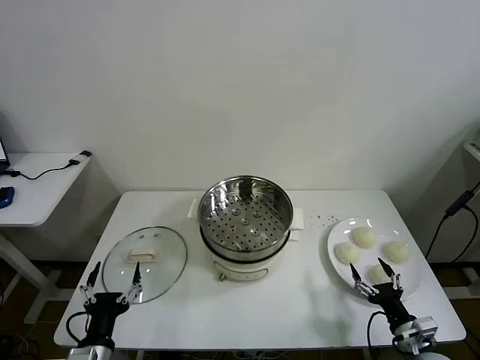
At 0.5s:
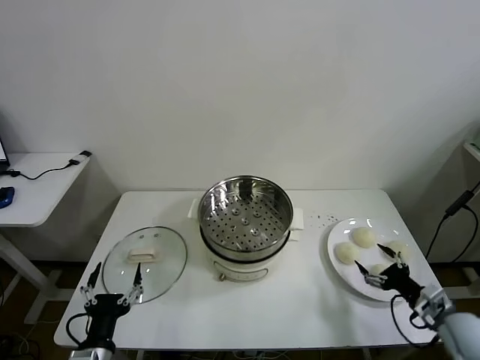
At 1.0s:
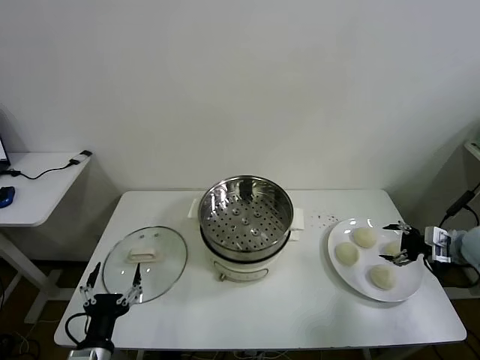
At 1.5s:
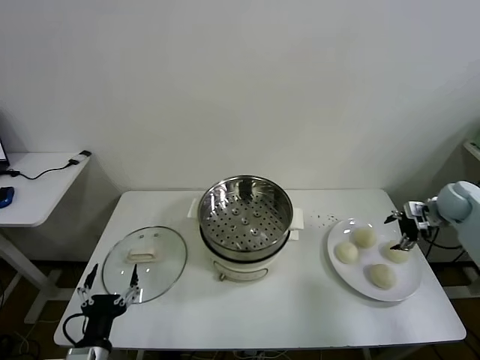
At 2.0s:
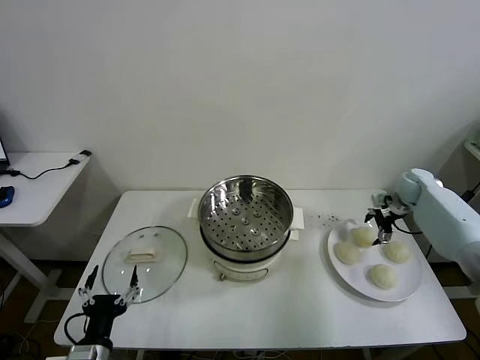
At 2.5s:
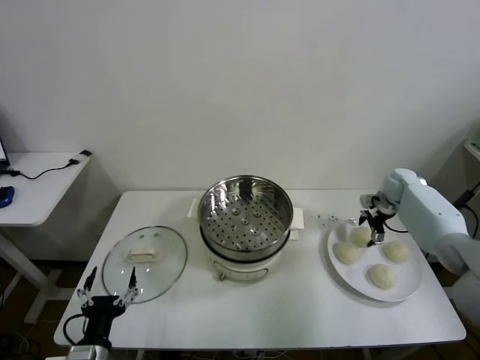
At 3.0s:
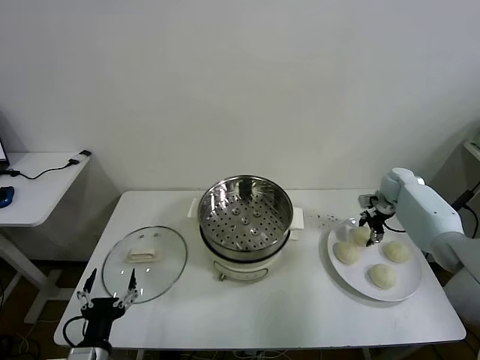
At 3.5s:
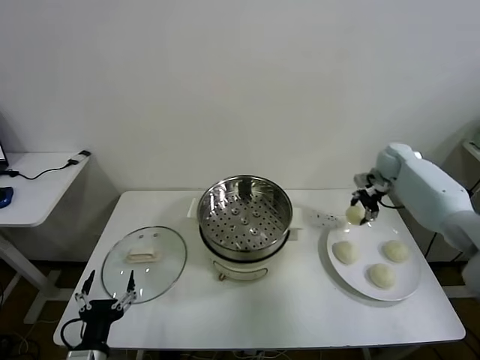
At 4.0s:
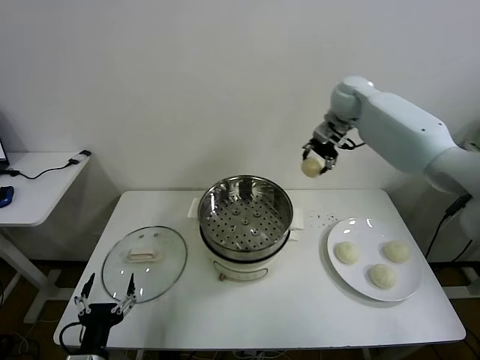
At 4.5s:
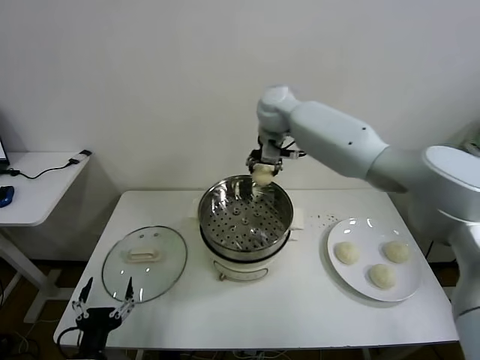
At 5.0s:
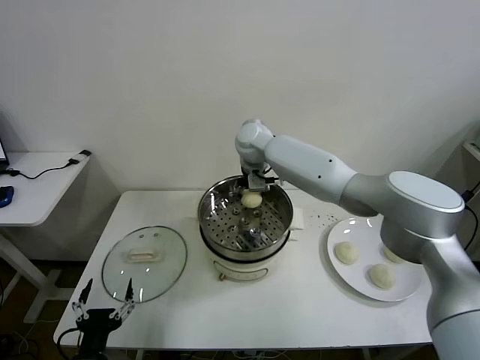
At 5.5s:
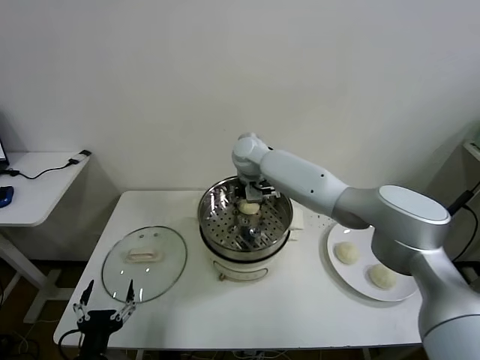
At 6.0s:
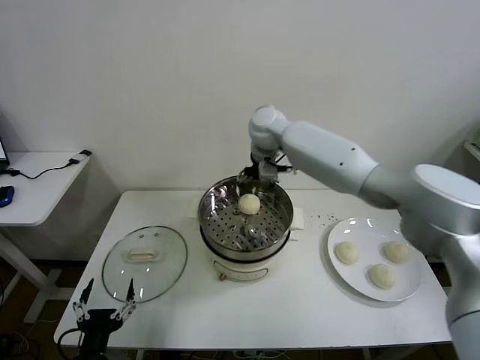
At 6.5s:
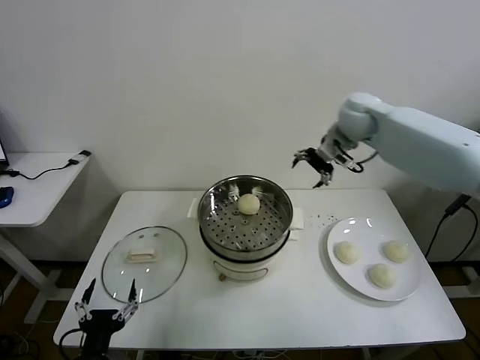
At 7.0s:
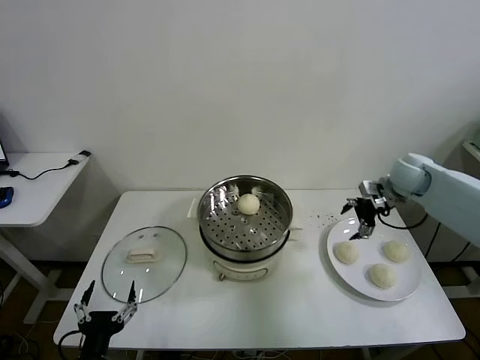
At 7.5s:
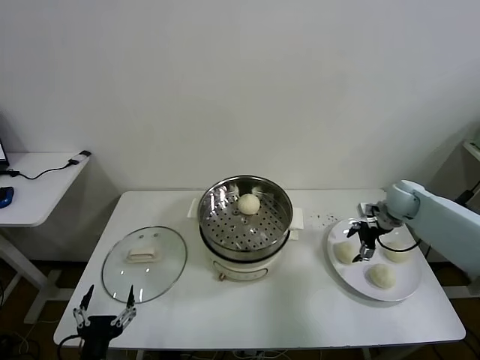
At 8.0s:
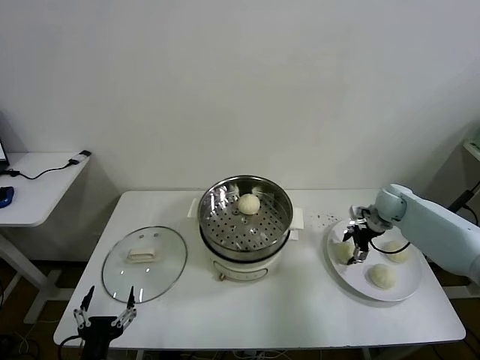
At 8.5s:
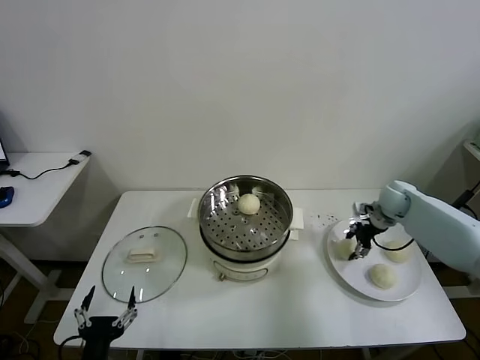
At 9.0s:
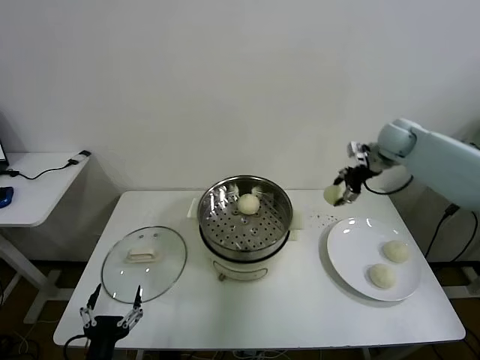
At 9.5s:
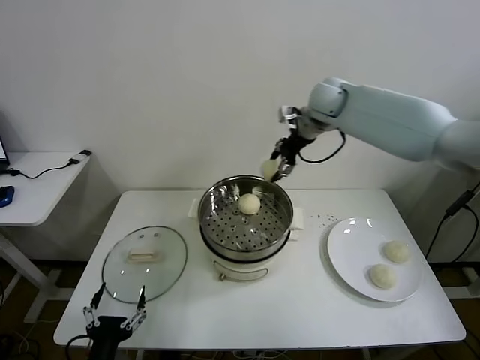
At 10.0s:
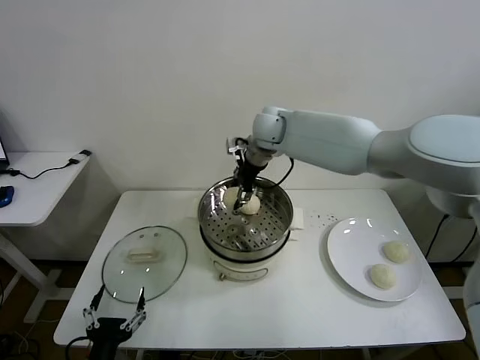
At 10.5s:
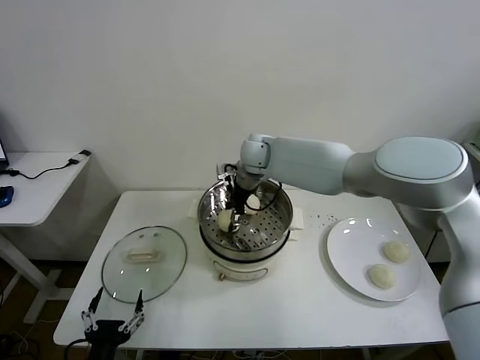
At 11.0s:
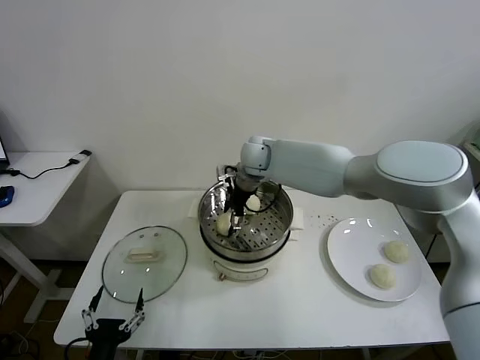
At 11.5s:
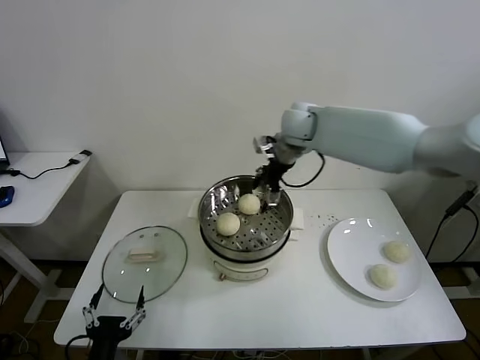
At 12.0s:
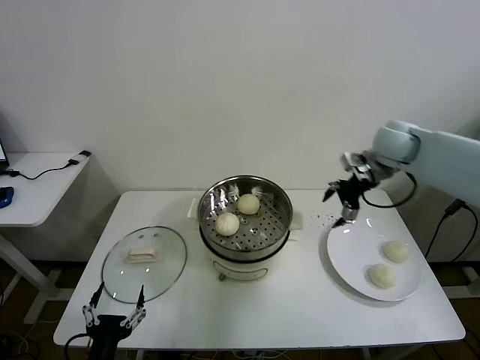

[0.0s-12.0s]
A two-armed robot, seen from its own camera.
Task of the whole recording: take steamed baozi put them in steamer then cover it.
Step, 0.0s to 2.5s: Grasp the baozi in the plate with right gripper.
Step, 3.0s to 5.5s: Place the baozi on the steamer with right gripper.
Step, 6.0s to 8.0s: Grasp the baozi in the plate with right gripper.
Step, 8.5s to 11.0s: Place the baozi on the steamer with right gripper.
2.0s to 4.0s: The right gripper heads to the left and upward, covering approximately 35 cm, and closes its fingers.
4.0s to 6.0s: The right gripper moves to the left, about 15 cm, and opens its fingers.
6.0s to 8.0s: The right gripper heads to the right and downward, covering some 40 cm.
8.0s to 10.0s: The right gripper shifts some 40 cm to the left and upward, and closes its fingers.
10.0s to 12.0s: The right gripper goes about 30 cm to the right, and opens.

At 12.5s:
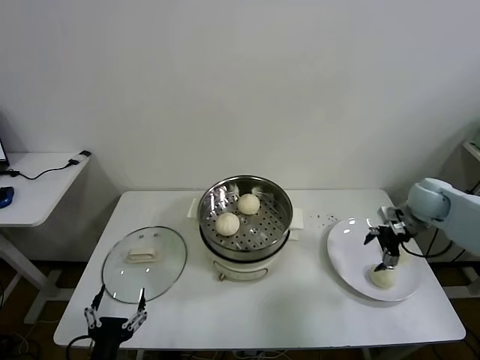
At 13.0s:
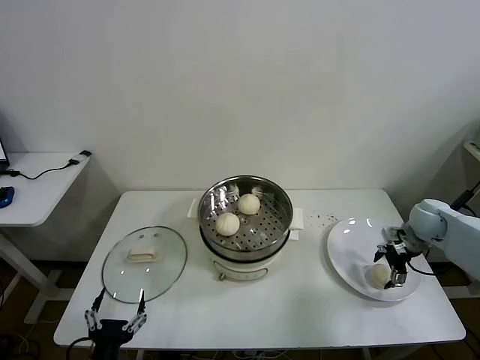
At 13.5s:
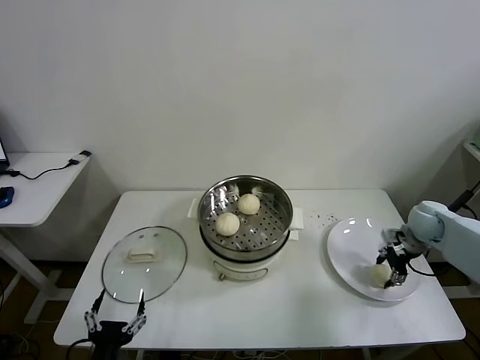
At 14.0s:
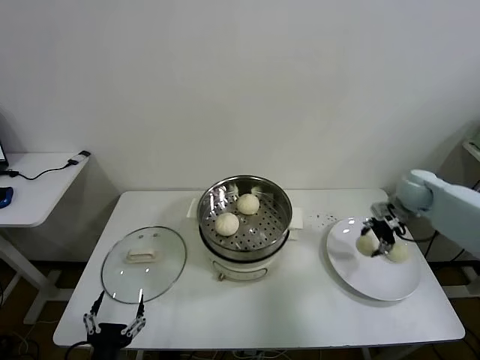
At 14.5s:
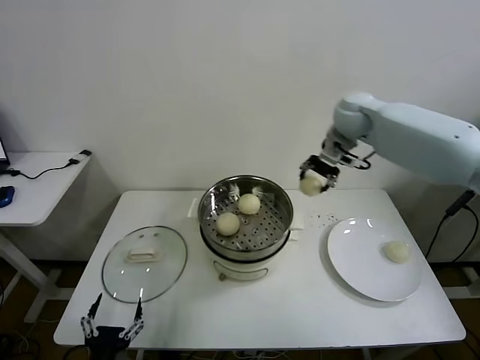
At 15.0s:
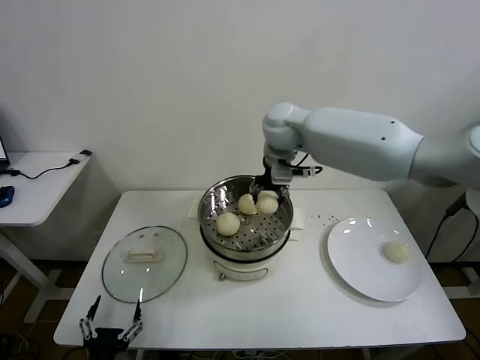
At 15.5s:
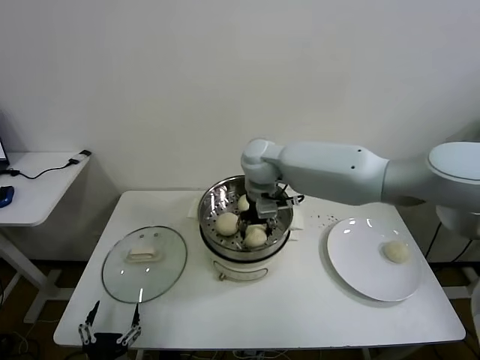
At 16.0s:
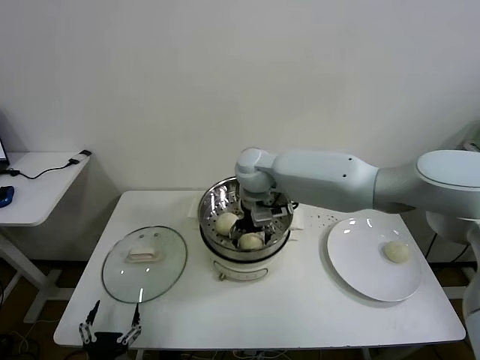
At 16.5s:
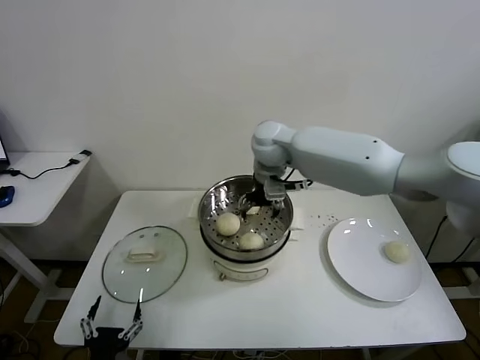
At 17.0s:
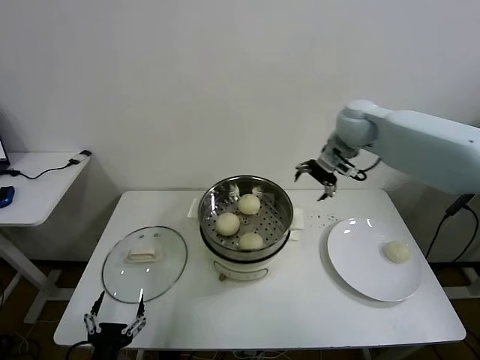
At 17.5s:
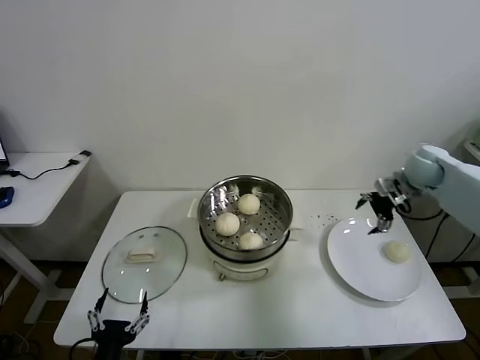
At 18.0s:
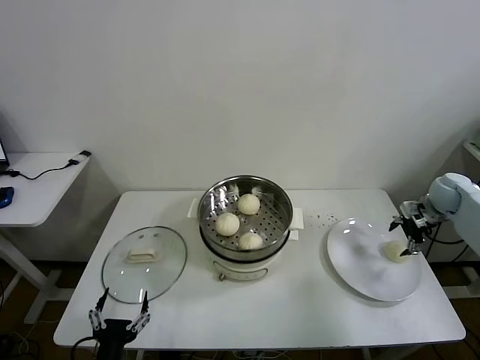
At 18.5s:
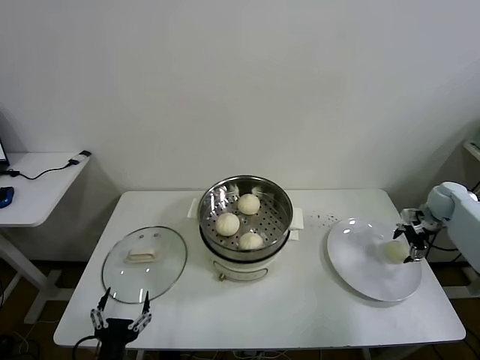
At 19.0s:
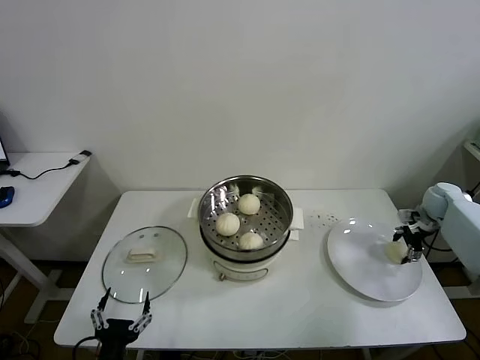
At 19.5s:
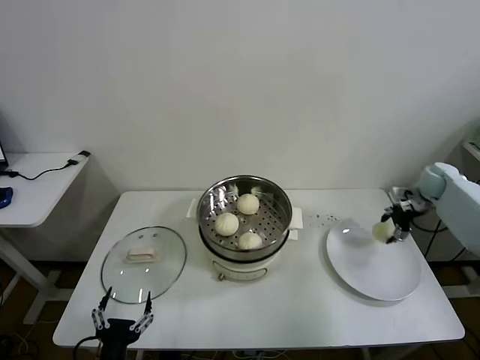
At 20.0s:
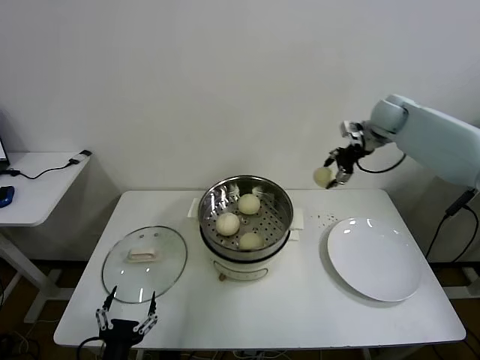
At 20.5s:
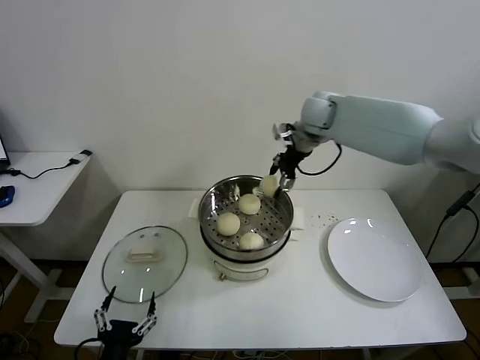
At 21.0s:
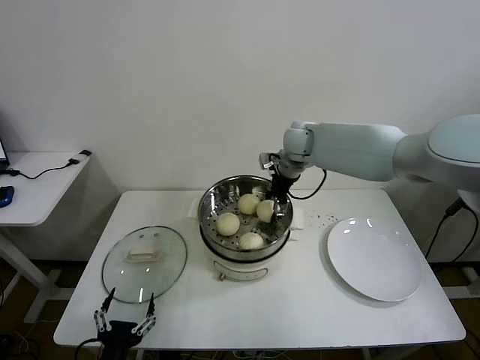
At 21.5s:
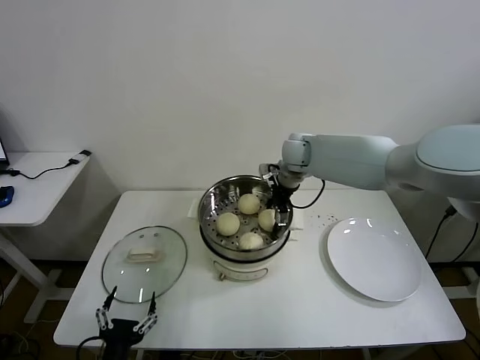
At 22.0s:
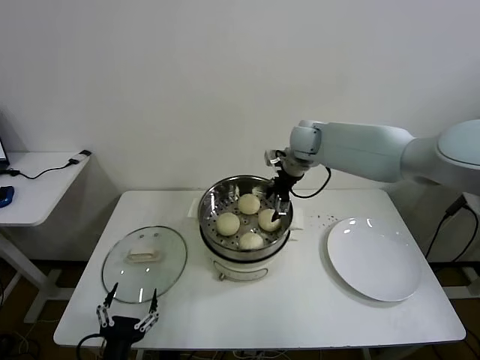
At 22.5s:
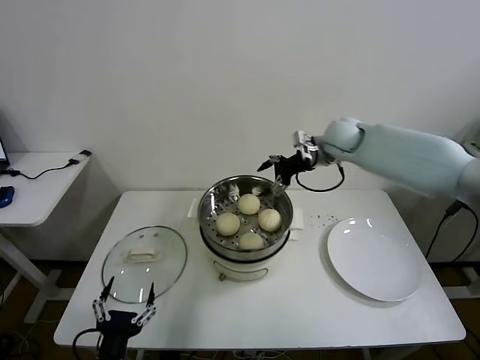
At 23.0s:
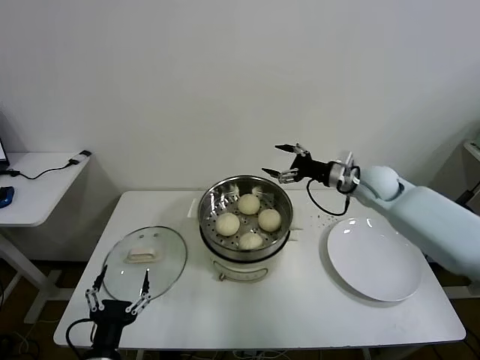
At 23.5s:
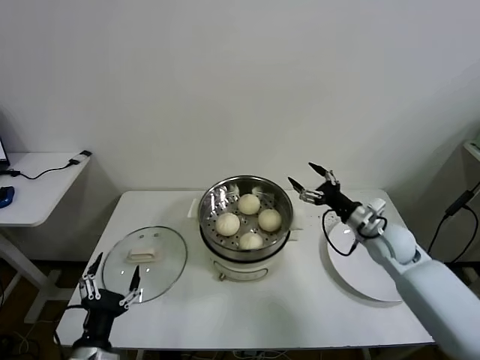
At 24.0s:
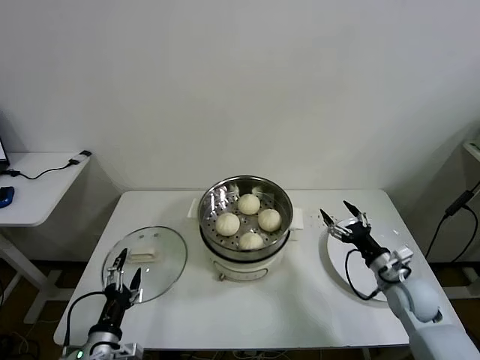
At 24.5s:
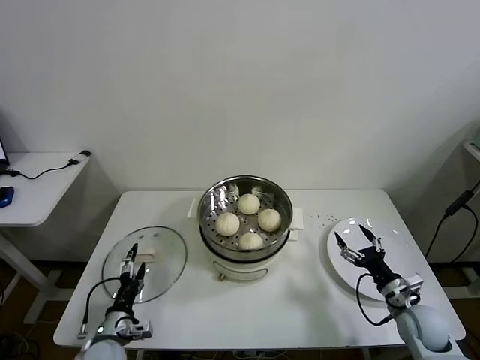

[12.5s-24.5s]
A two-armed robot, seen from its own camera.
Task of the whole recording: take steamed baozi put them in steamer then cover it.
Step, 14.0s to 16.0s: Place the baozi on the steamer with right gripper.
Step, 17.0s to 19.0s: Grasp the baozi in the plate with right gripper.
Step, 19.5s to 22.0s: Place the baozi on the steamer with right gripper.
12.5s to 14.5s: The right gripper shifts about 30 cm to the left, upward and forward, and closes its fingers.
14.5s to 16.5s: The right gripper moves to the left, some 15 cm, and opens its fingers.
16.5s to 18.5s: The right gripper is displaced to the right by approximately 50 cm.
18.5s to 20.5s: The right gripper heads to the left and upward, covering about 40 cm, and closes up.
20.5s to 22.5s: The right gripper heads to the right and downward, covering some 10 cm, and opens.
22.5s to 24.5s: The left gripper travels forward, downward and to the left by some 15 cm. The right gripper travels backward, downward and to the right by some 50 cm.

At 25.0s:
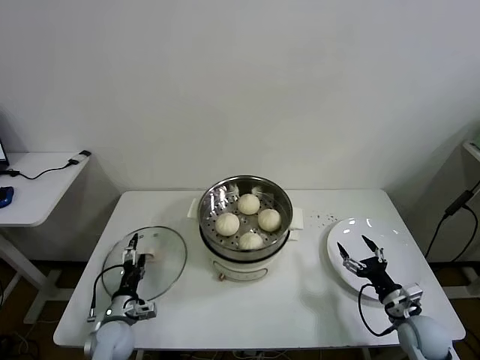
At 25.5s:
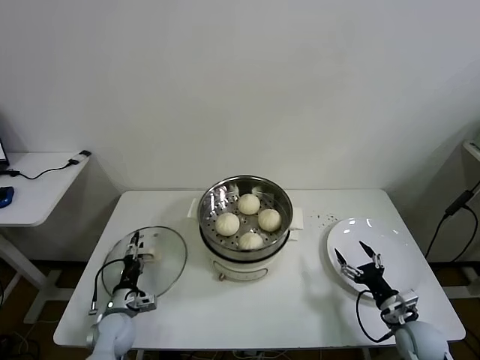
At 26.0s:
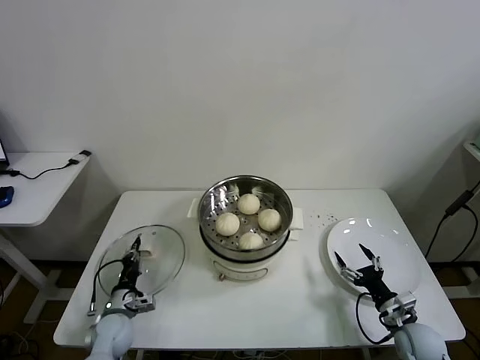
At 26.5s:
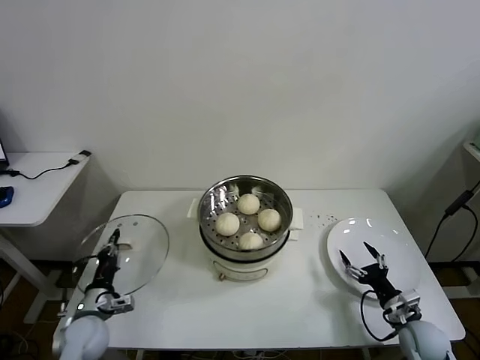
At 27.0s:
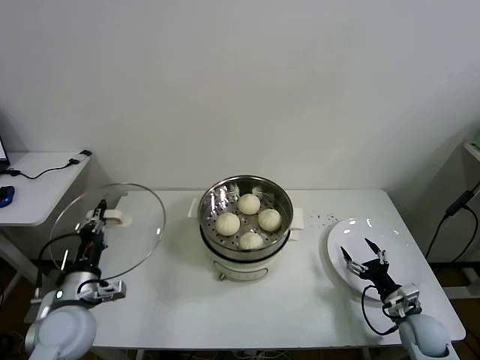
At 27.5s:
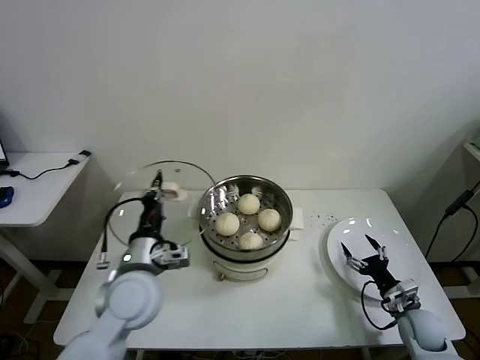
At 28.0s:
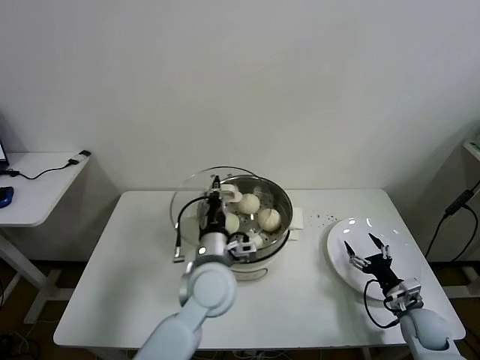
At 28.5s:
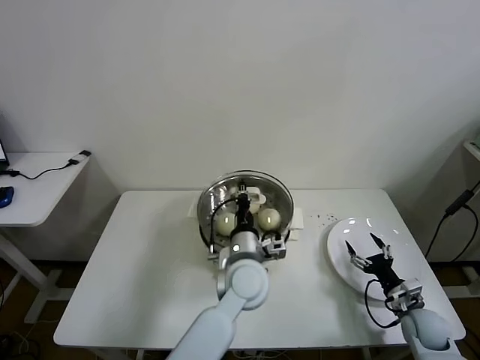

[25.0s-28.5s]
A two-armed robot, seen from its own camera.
Task of the whole recording: take steamed baozi put them in steamer then cover it.
25.0s to 27.0s: The left gripper is displaced upward by some 20 cm, and closes up.
27.0s to 28.5s: The left gripper heads to the right, covering some 35 cm.
